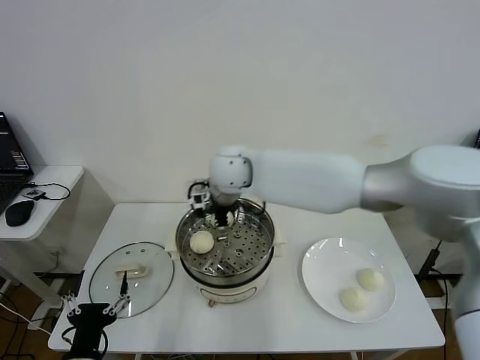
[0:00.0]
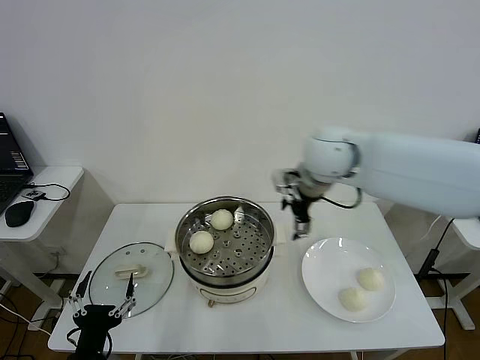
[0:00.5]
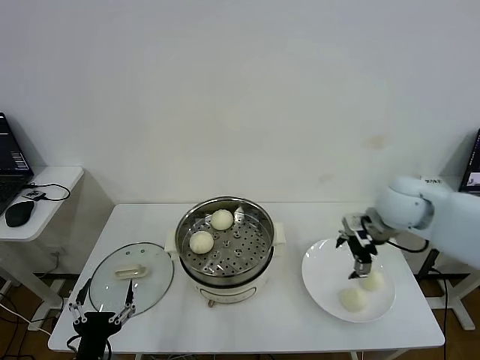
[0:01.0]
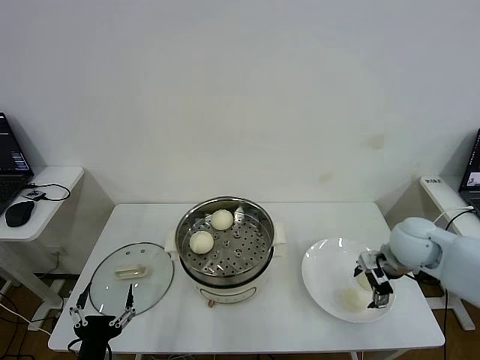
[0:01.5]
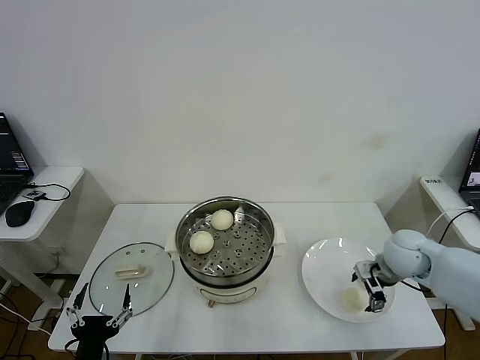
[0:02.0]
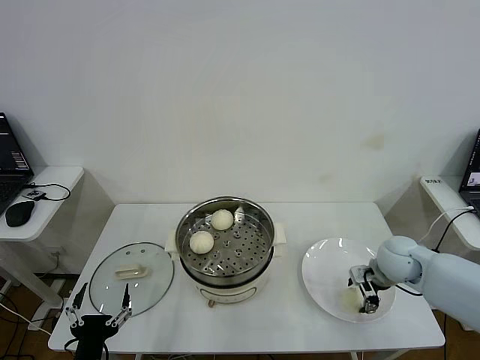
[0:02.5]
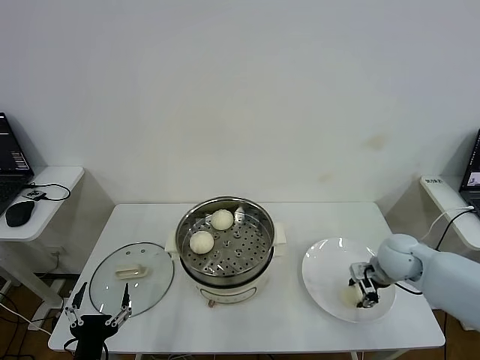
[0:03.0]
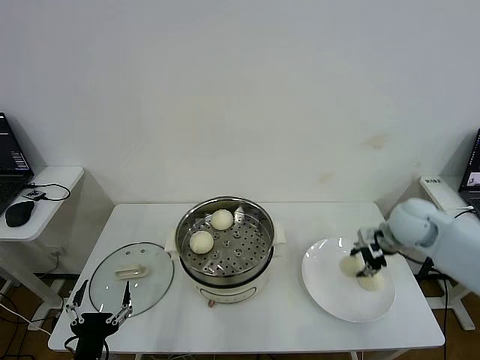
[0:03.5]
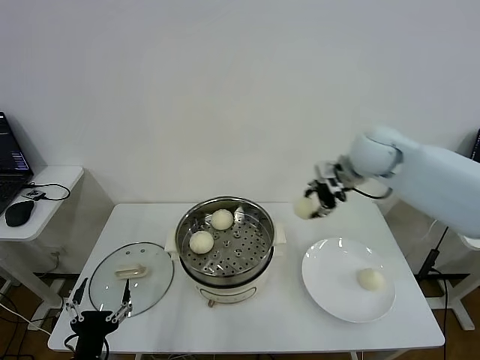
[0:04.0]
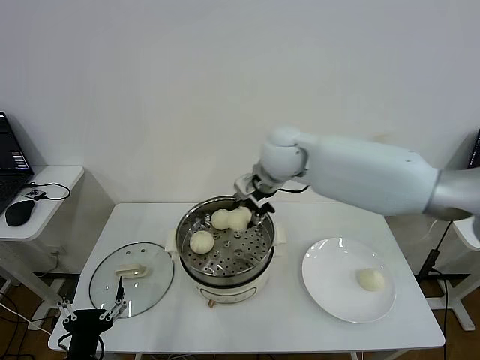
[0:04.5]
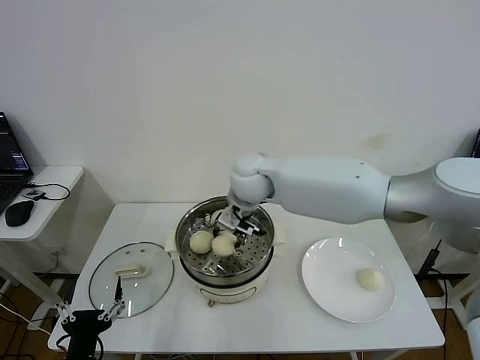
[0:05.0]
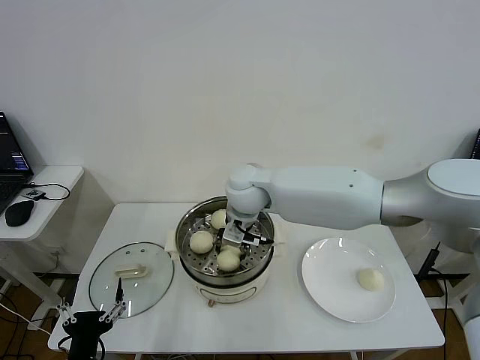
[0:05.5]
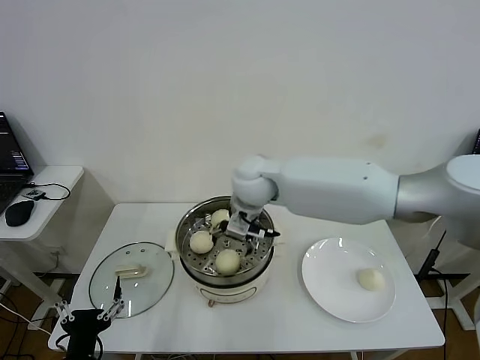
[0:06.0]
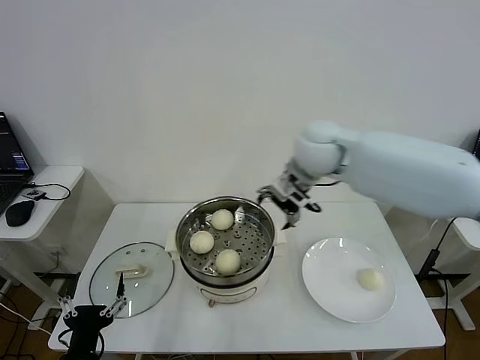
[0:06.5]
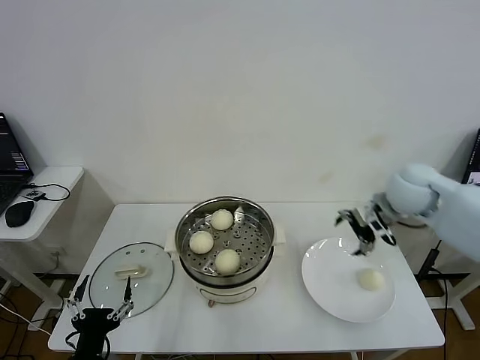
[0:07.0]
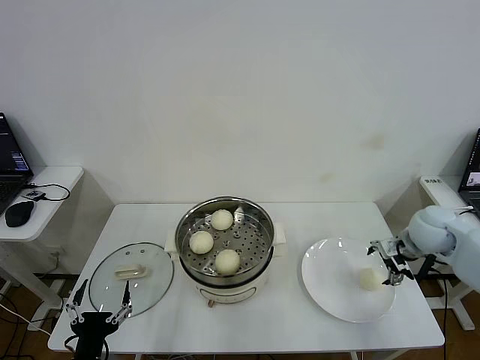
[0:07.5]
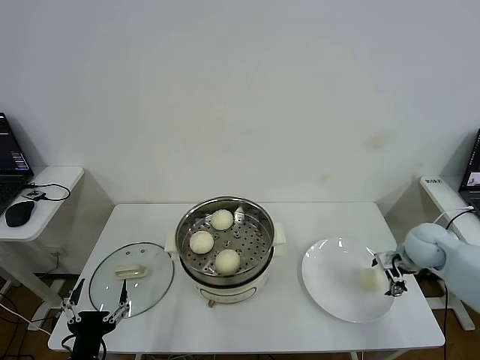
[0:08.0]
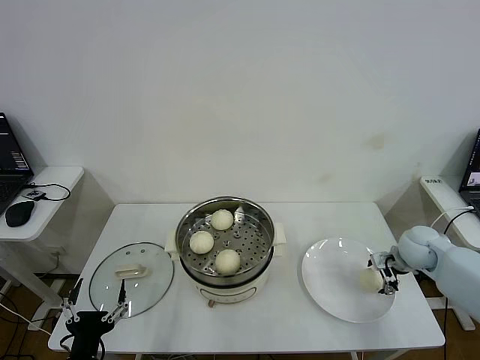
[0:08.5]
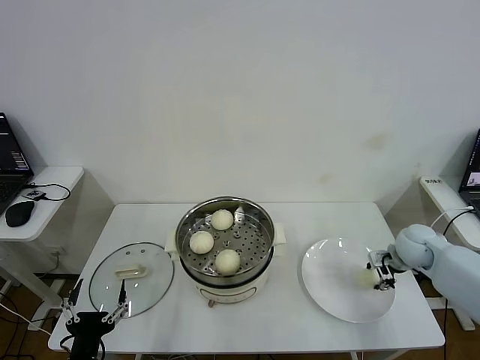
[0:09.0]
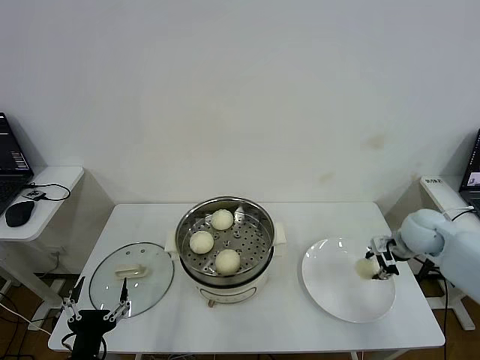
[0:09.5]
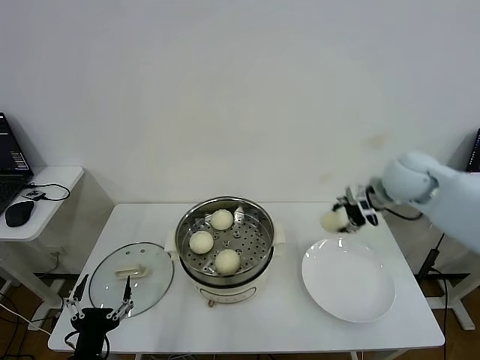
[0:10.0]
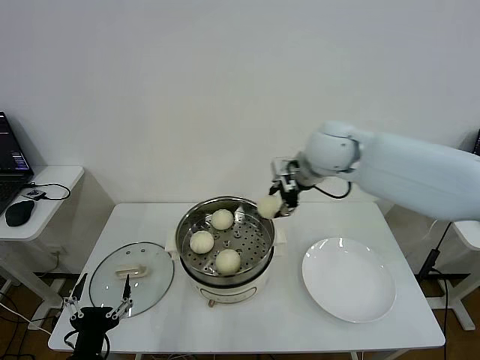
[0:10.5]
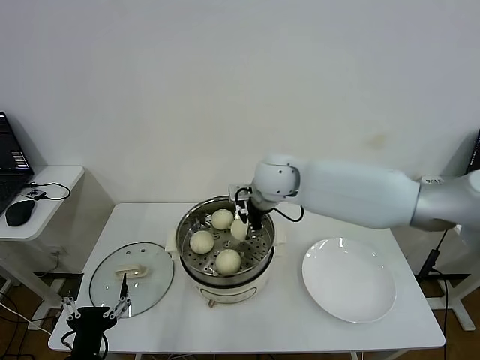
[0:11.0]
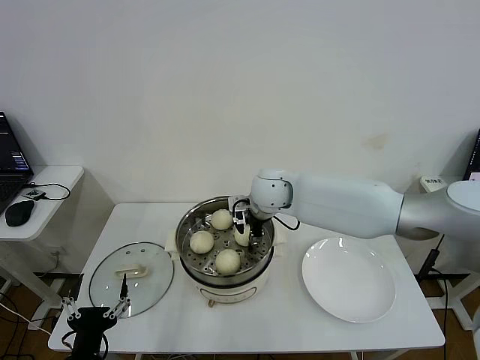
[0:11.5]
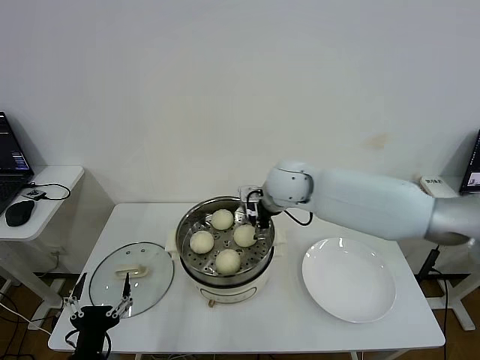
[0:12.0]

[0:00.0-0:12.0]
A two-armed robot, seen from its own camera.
Step, 0:00.0 to 0:02.5: Grasp the baozi in the plate with right gripper.
Step, 0:03.0 to 0:05.5: Place the baozi on the steamer with right gripper.
Step, 0:06.0 to 0:09.0: Grasp the baozi in the plate with right gripper.
Step, 0:09.5 to 0:11.5: Place the baozi on the steamer with right gripper.
0:00.0 to 0:02.0: The right gripper shifts some 40 cm to the right and downward.
0:02.0 to 0:04.0: The right gripper travels upward, to the left and forward by some 25 cm, and closes up.
0:04.0 to 0:06.0: The right gripper is displaced to the left by about 20 cm, and opens its fingers.
0:06.0 to 0:08.0: The right gripper travels to the right and downward by about 40 cm.
0:08.0 to 0:10.0: The right gripper travels upward and to the left by approximately 20 cm, and closes up.
0:10.0 to 0:12.0: The right gripper shifts about 20 cm to the left, and opens up.

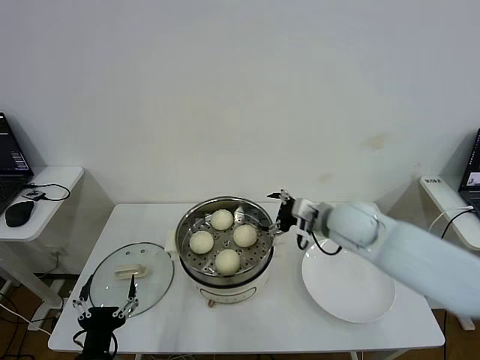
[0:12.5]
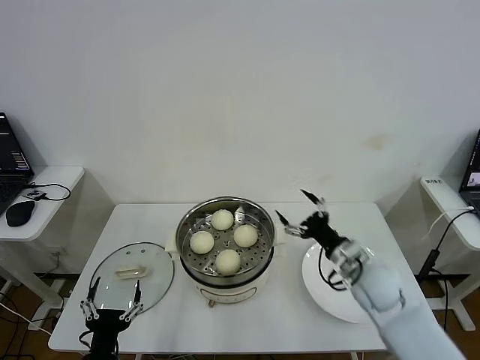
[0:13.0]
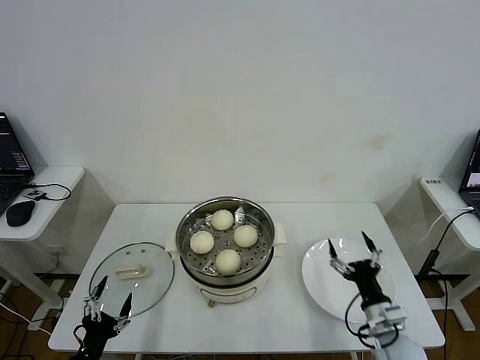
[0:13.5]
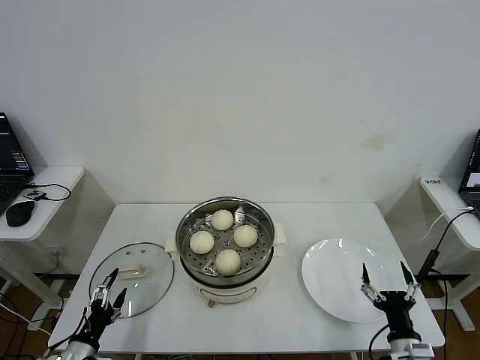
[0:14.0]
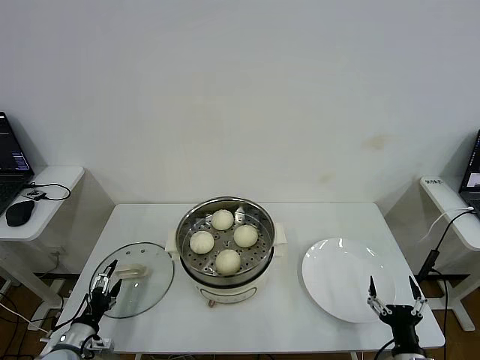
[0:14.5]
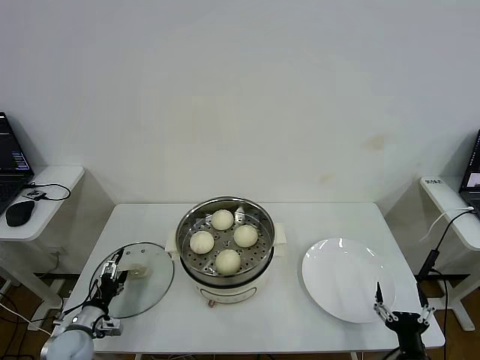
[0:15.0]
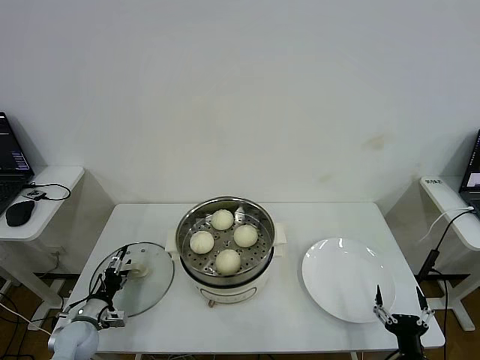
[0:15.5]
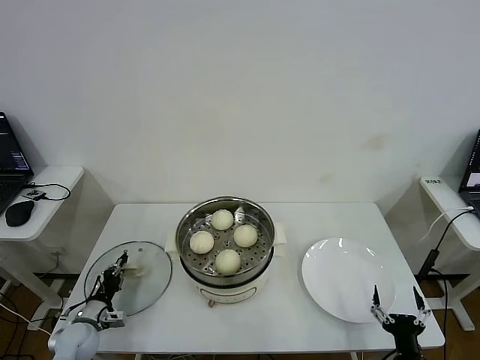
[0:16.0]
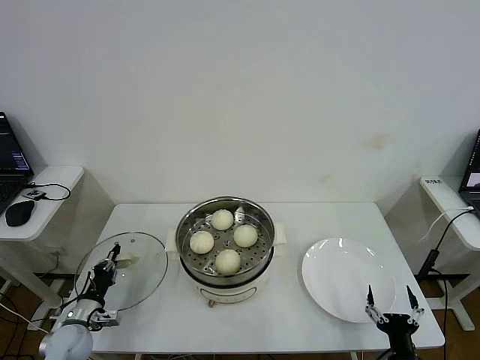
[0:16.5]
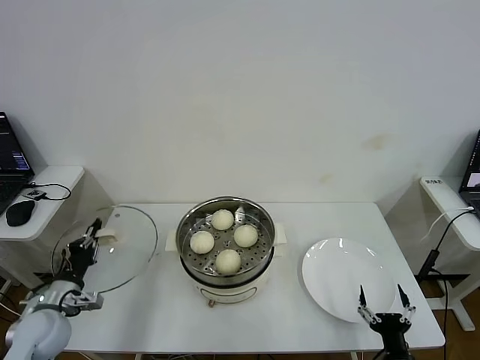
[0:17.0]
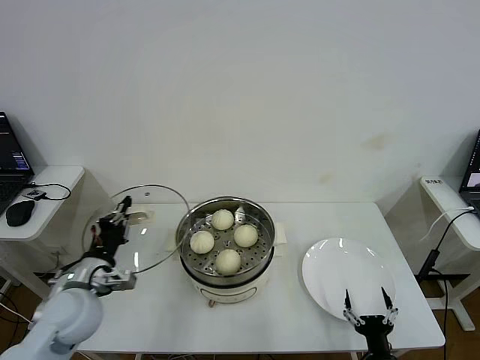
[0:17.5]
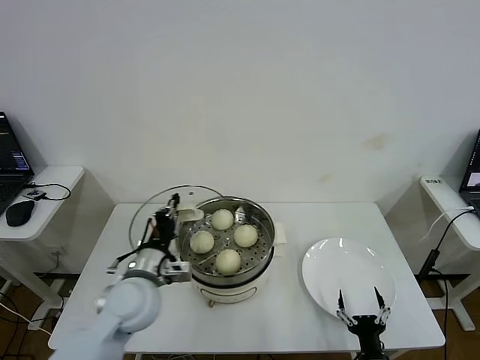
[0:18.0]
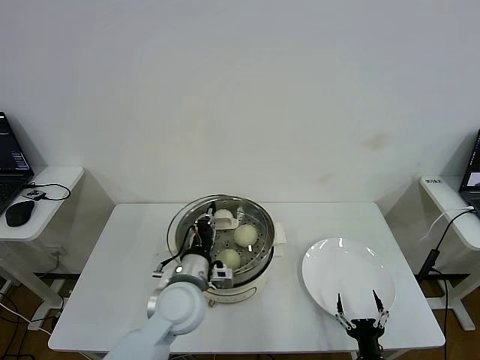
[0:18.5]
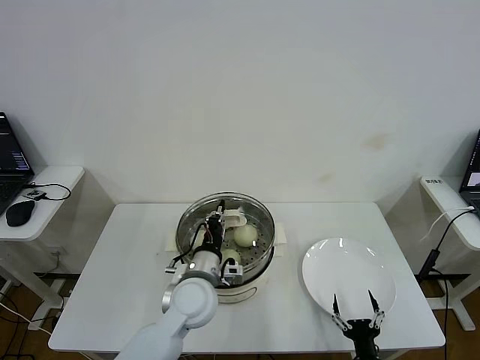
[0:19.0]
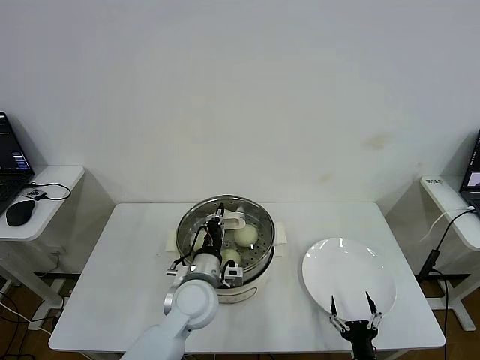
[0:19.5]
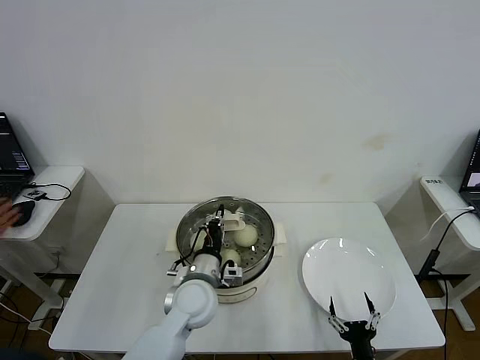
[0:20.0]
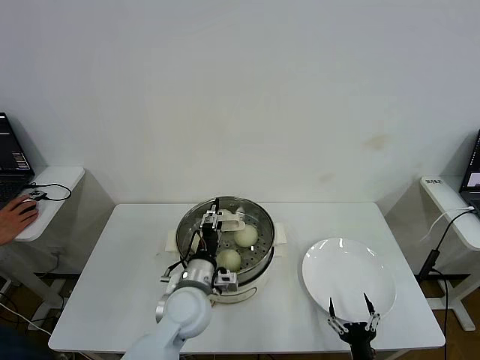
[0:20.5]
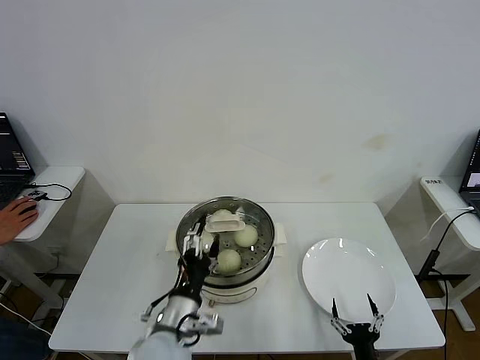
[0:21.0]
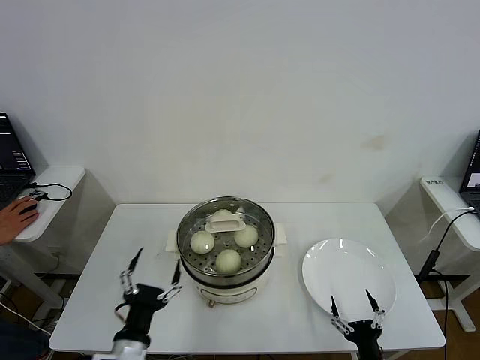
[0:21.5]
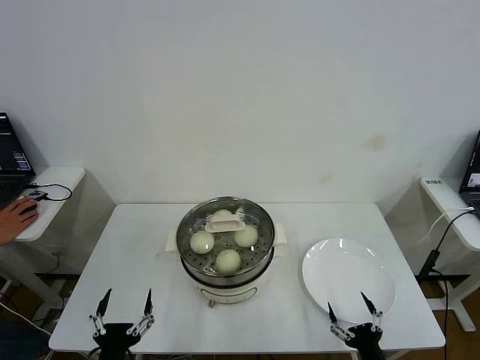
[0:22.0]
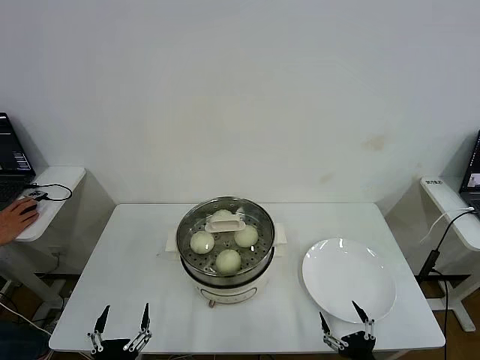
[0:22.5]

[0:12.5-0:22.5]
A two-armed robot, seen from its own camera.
Step, 0:12.5 to 0:16.0: Grasp the pot lid with left gripper.
Step, 0:16.5 to 0:20.0: Place the pot lid on the steamer with left gripper.
0:12.5 to 0:14.5: The left gripper shifts about 20 cm to the left, forward and downward; the right gripper travels backward, downward and to the right by about 40 cm.
0:14.5 to 0:16.5: The left gripper travels forward by approximately 5 cm, and closes.
0:16.5 to 0:18.5: The right gripper shifts by about 5 cm, while the left gripper shifts some 35 cm to the right and upward.
0:18.5 to 0:20.5: The left gripper opens up.
0:20.5 to 0:22.5: The left gripper is displaced backward and to the left by approximately 30 cm, and opens its fingers. Meanwhile the right gripper heads upward, covering about 5 cm.
